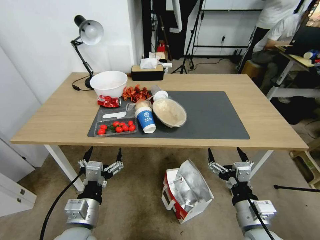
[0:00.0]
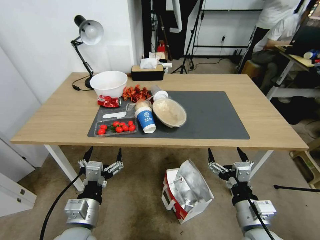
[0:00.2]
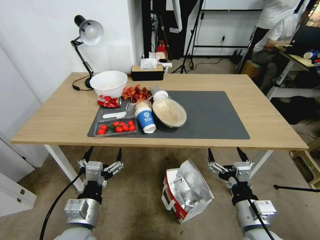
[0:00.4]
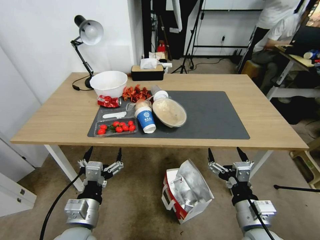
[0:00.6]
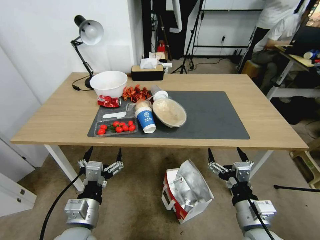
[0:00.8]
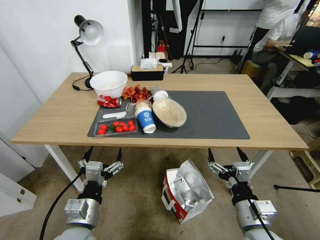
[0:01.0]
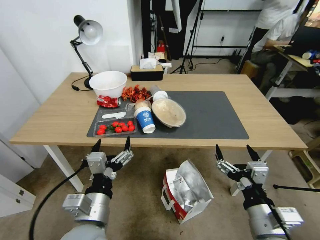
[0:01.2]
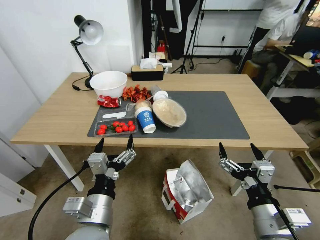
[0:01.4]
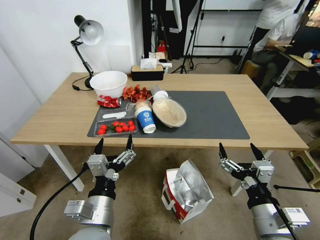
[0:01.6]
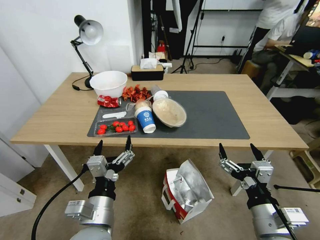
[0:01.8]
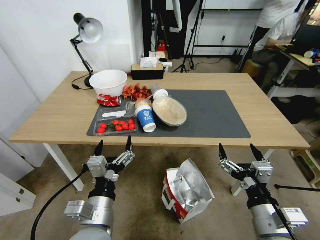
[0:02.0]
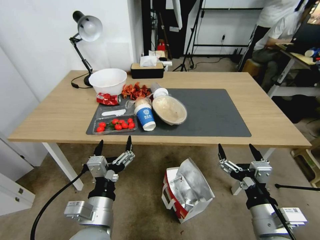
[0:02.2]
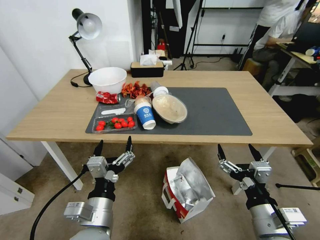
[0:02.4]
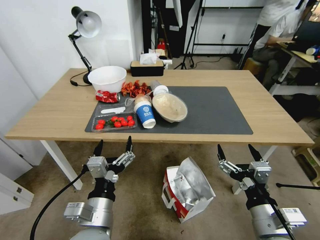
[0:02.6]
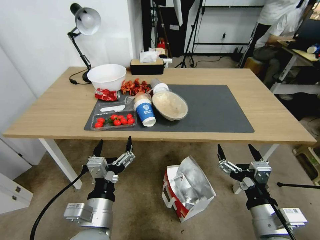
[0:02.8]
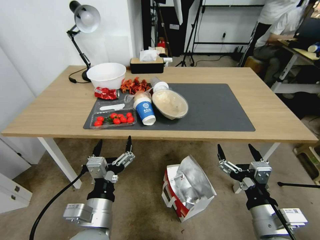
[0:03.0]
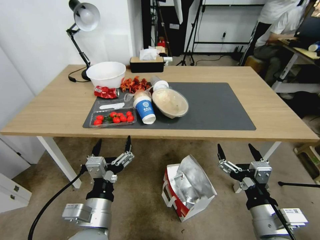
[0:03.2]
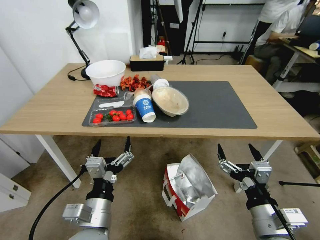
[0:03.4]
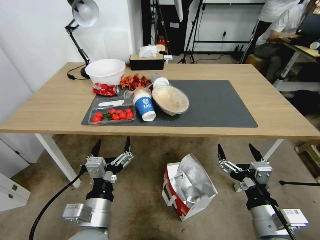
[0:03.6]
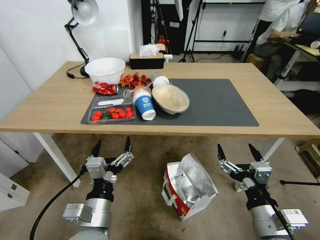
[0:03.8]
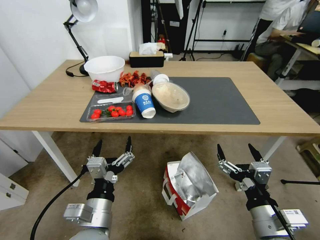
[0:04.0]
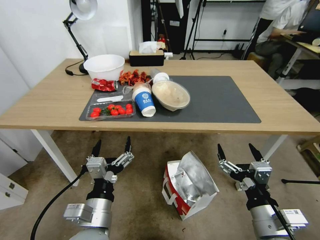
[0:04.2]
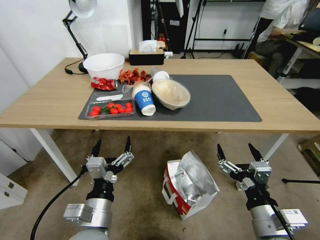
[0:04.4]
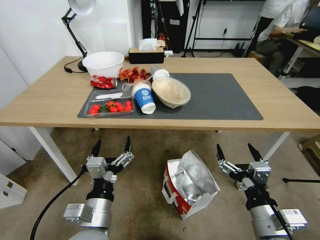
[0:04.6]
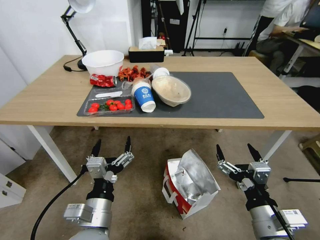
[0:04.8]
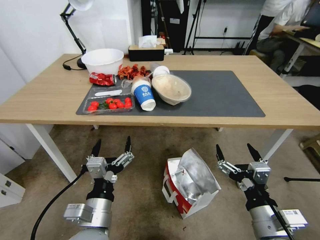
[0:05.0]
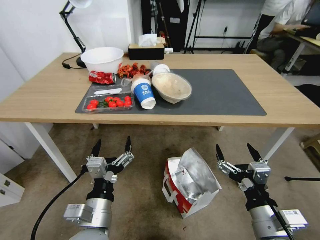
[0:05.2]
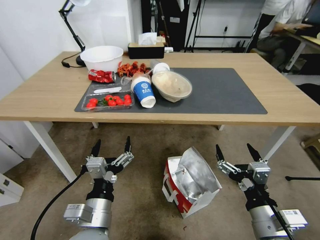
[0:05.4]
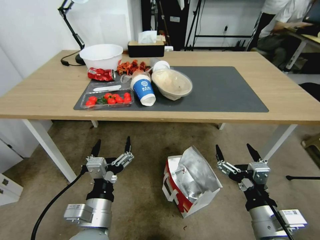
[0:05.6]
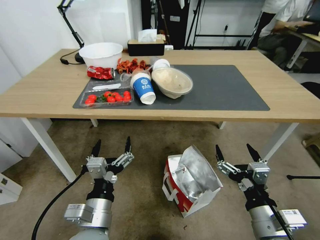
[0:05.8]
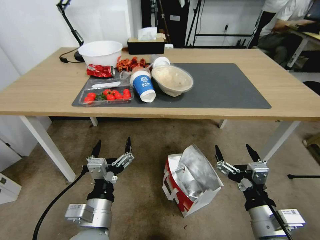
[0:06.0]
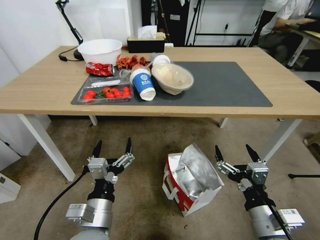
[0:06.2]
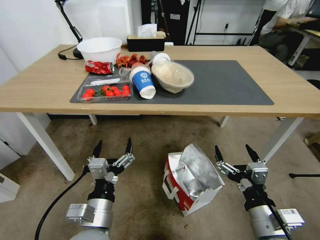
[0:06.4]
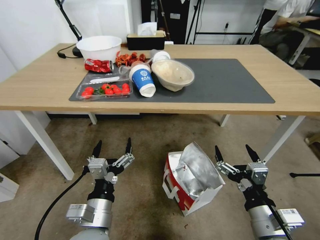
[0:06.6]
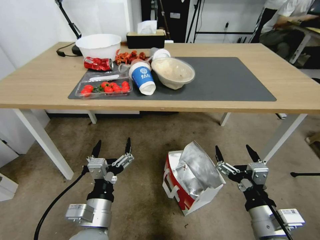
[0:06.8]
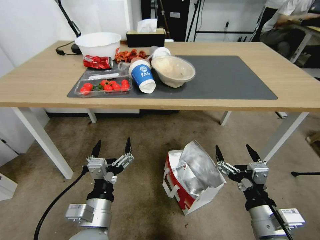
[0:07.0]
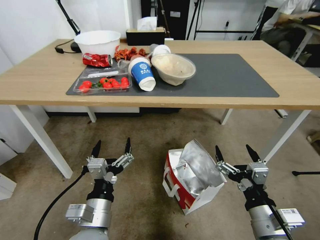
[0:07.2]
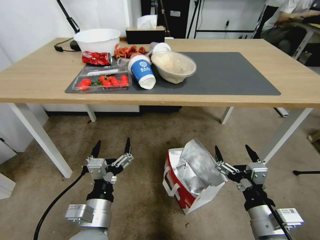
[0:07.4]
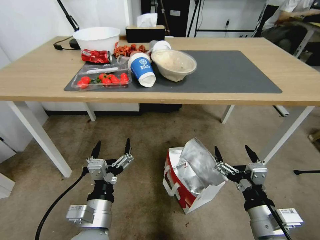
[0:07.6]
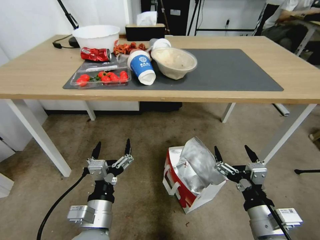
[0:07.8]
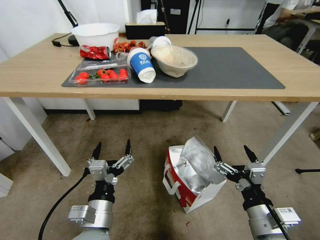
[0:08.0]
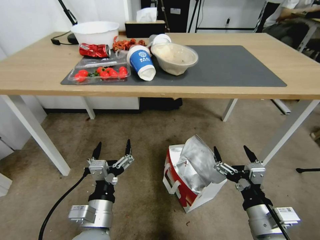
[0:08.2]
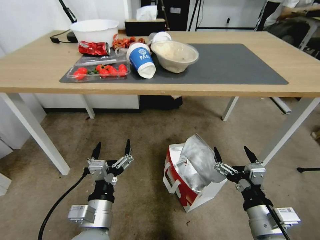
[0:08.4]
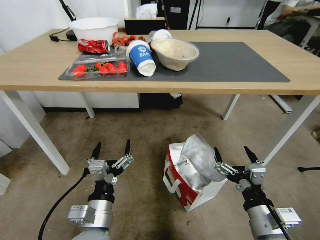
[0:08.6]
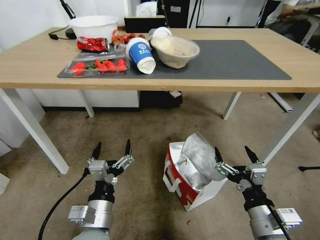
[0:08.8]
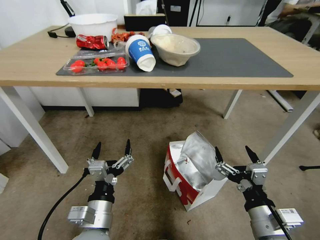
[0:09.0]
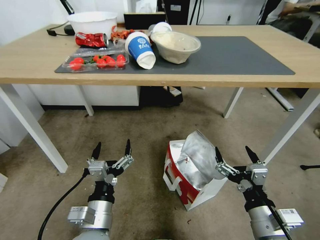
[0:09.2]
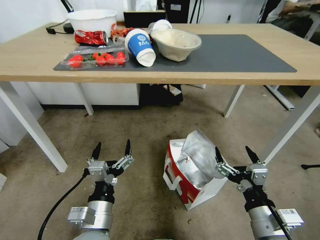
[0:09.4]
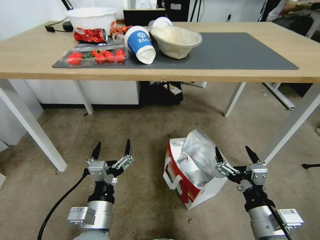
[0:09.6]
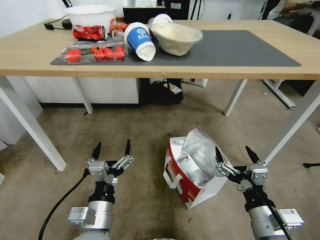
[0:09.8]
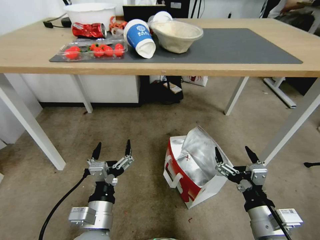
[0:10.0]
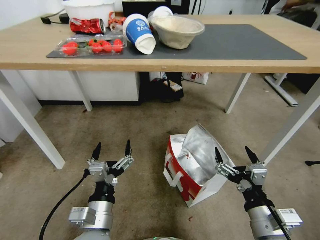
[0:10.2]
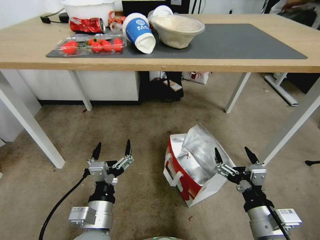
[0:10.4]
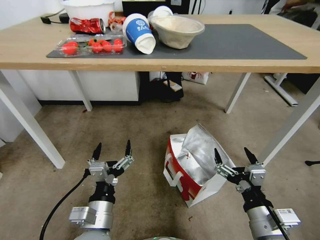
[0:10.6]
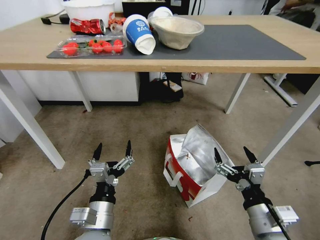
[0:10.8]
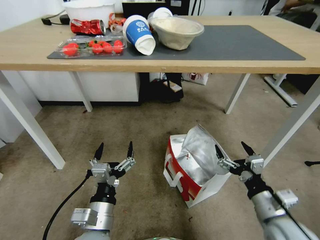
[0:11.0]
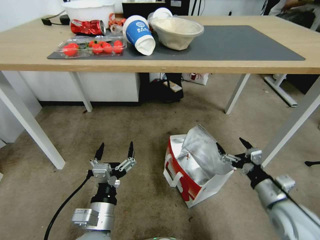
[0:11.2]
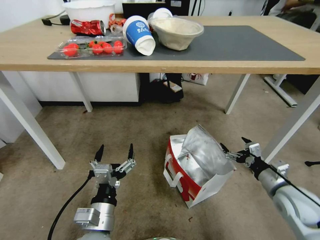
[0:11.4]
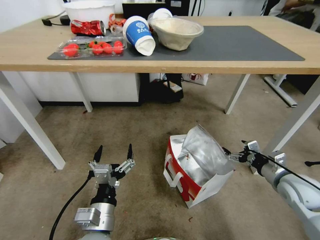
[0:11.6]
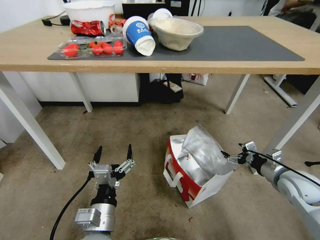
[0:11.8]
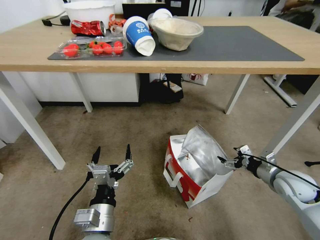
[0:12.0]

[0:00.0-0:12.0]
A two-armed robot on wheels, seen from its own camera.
Task of the whole recording: Pick up the food delivery bag from the floor and place it on the table.
0:10.4 to 0:12.0: The right gripper travels forward and to the right by roughly 25 cm.

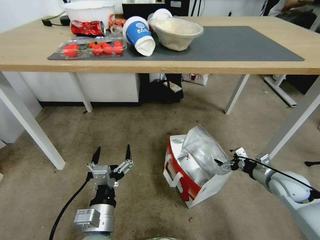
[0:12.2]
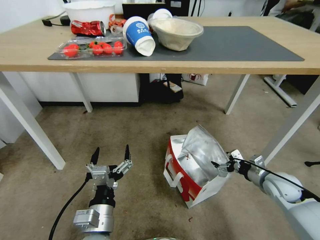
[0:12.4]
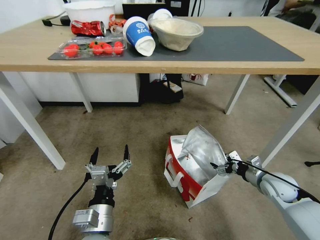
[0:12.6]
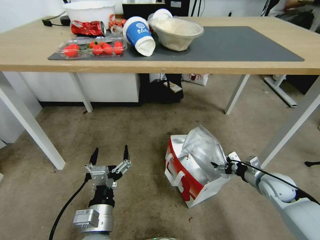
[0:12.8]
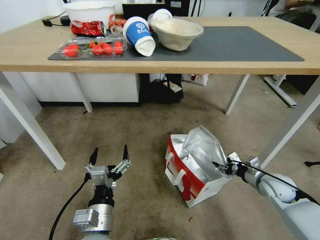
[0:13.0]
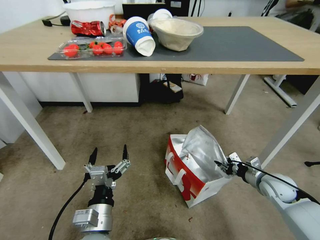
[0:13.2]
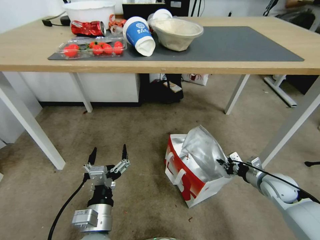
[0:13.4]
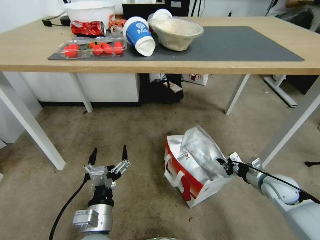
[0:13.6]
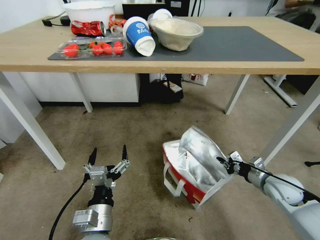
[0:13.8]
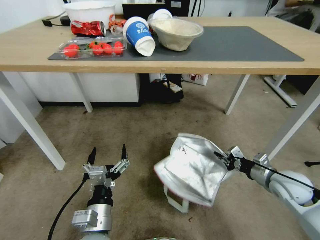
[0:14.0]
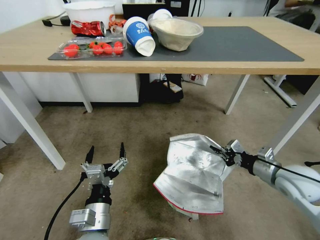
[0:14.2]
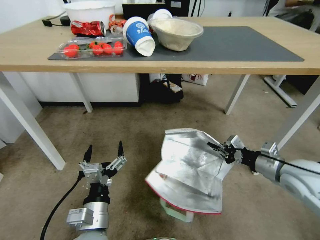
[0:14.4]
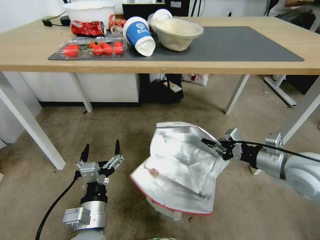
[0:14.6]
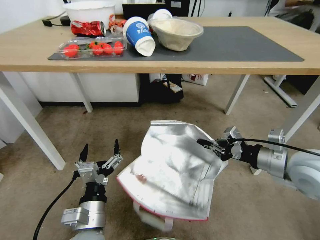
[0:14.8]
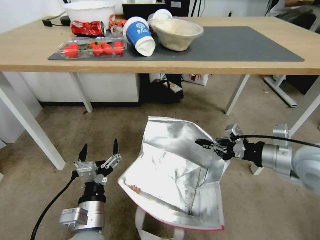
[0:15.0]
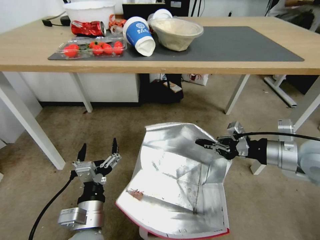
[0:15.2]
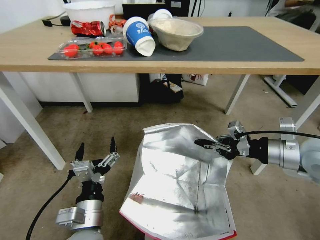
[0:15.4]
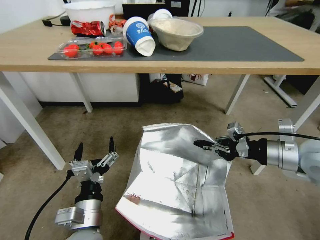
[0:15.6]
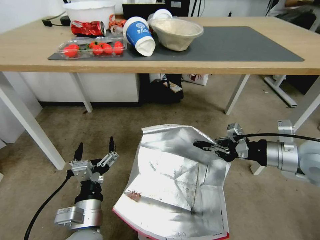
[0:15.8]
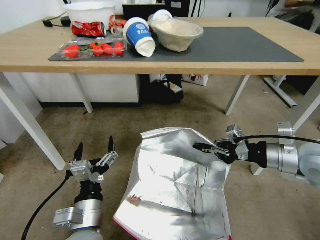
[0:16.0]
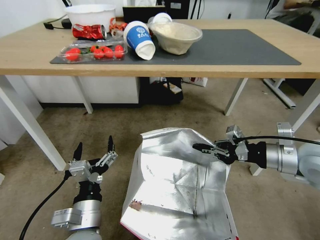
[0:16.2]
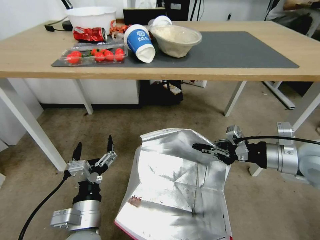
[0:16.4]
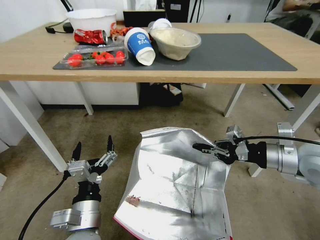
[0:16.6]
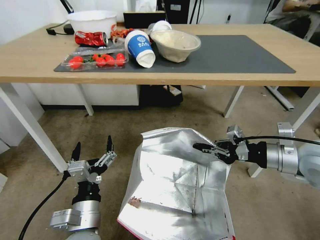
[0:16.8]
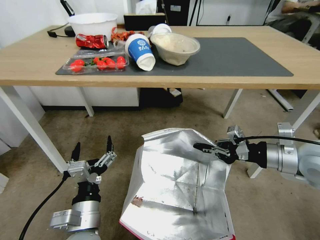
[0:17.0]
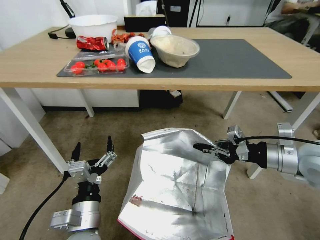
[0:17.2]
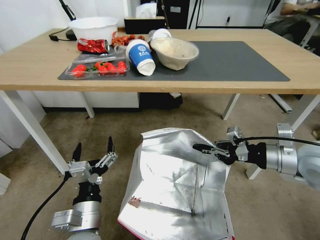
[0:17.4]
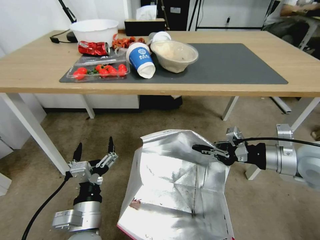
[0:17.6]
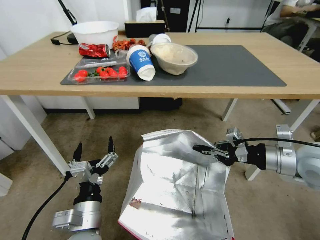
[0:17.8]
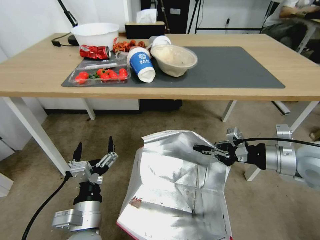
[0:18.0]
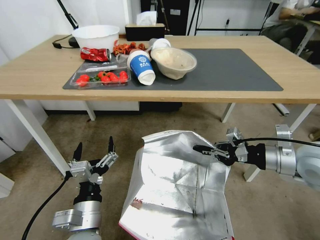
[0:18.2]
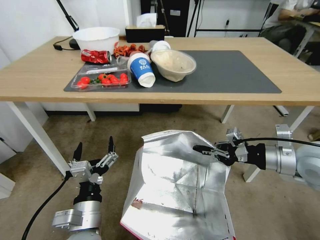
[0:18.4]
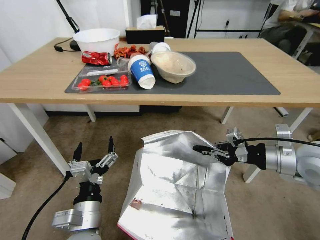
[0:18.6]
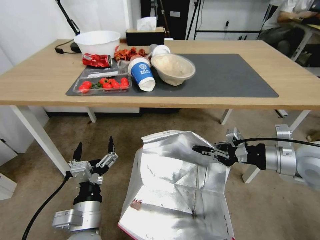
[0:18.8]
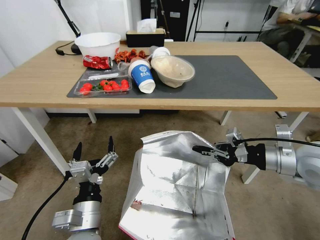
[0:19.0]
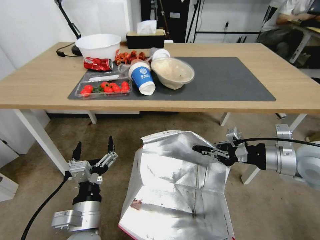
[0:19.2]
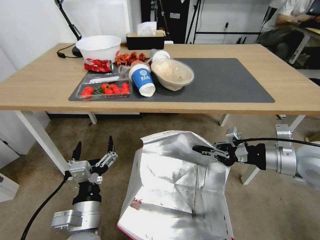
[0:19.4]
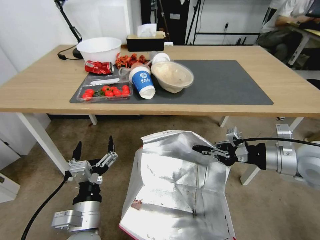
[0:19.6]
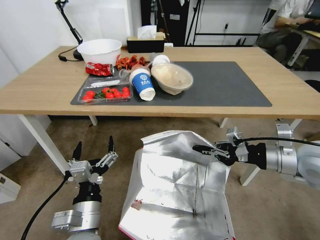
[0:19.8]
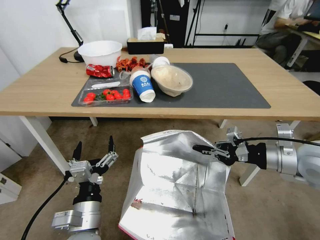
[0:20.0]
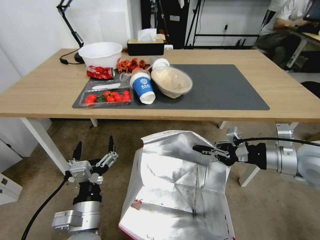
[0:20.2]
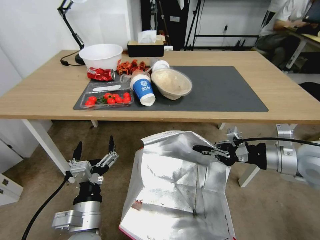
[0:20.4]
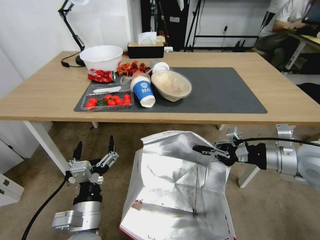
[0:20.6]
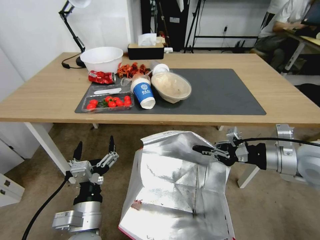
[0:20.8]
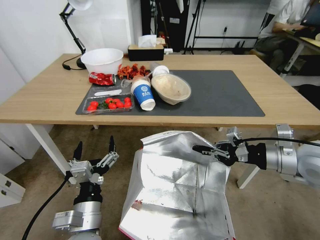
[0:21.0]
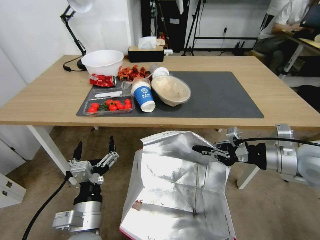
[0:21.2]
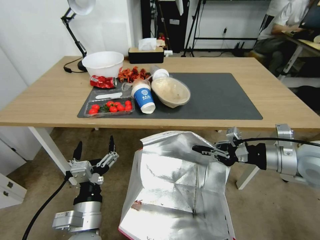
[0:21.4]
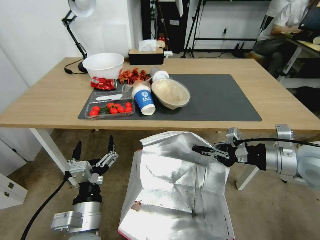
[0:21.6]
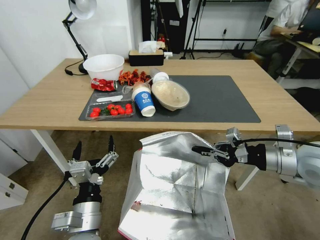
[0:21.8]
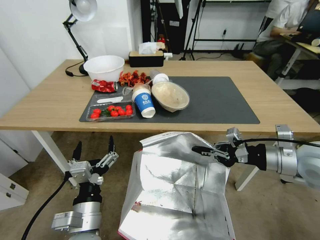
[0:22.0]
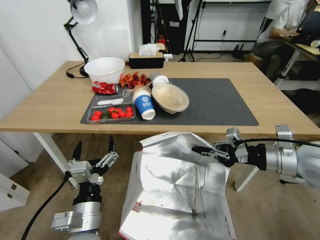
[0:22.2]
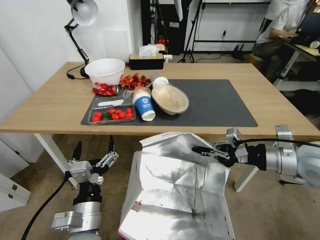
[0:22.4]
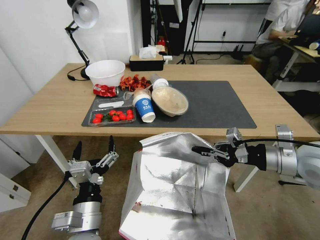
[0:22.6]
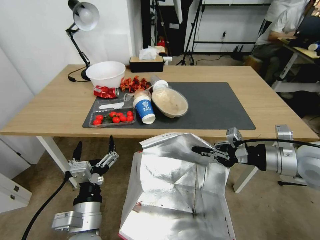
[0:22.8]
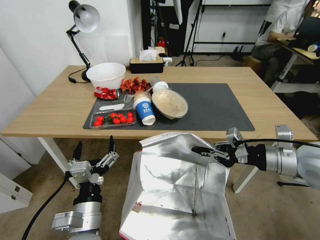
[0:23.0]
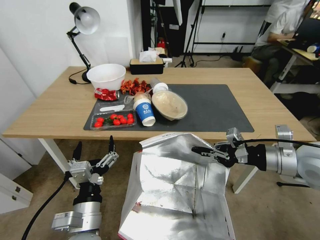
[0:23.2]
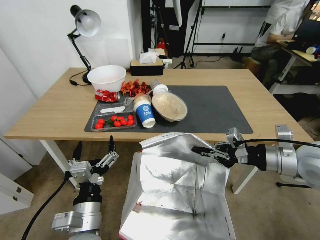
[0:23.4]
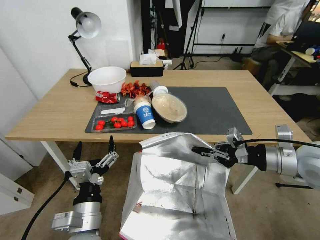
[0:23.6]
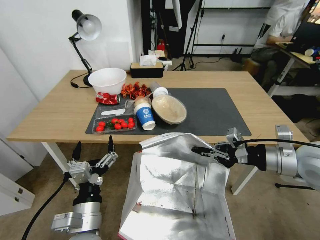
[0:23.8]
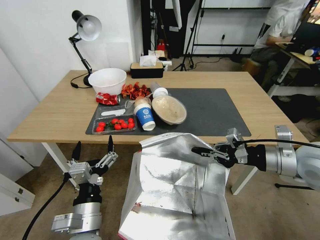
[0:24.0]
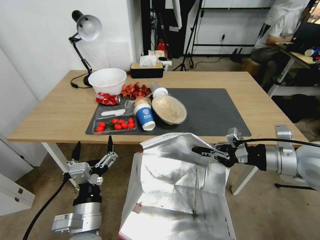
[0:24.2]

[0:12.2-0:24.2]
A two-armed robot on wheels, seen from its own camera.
Task of the whole recording: Pick up the food delivery bag from the floor and place it on the table.
0:12.2 to 0:13.8: The right gripper closes.
0:13.8 to 0:15.2: The right gripper moves upward, about 20 cm.
